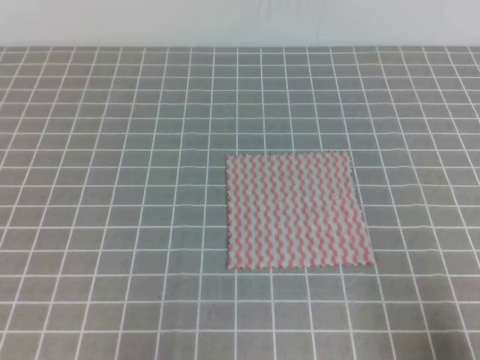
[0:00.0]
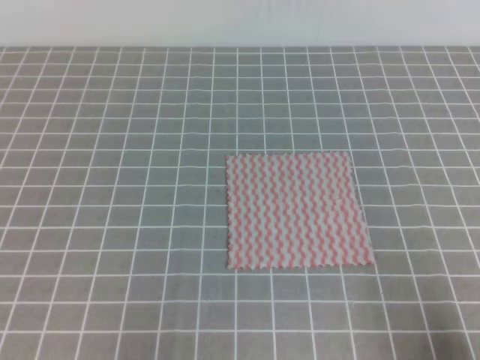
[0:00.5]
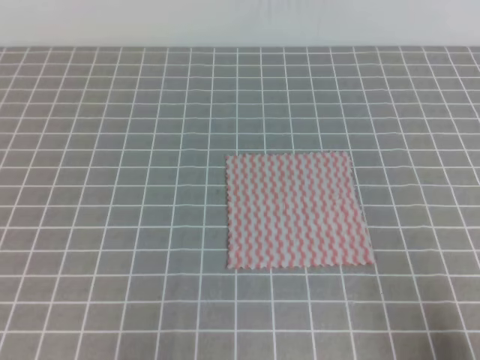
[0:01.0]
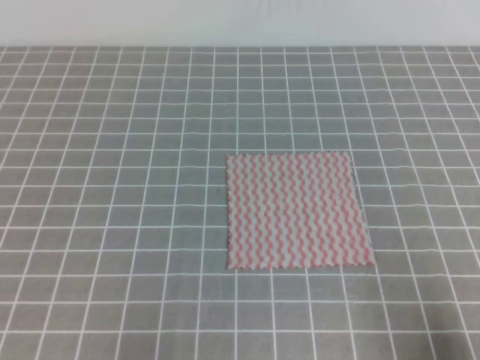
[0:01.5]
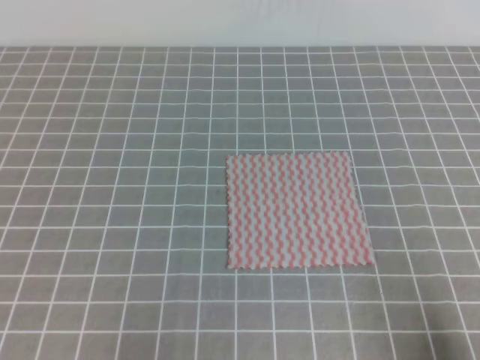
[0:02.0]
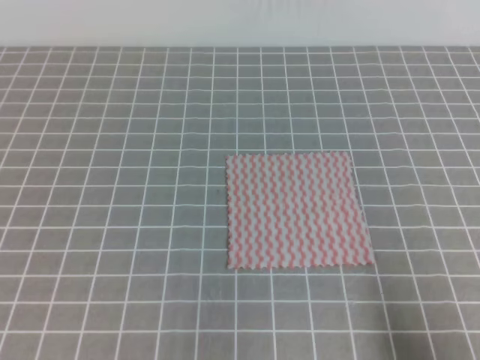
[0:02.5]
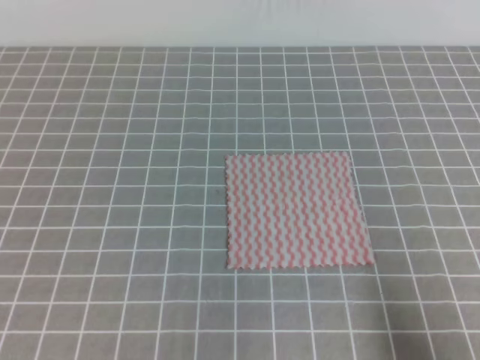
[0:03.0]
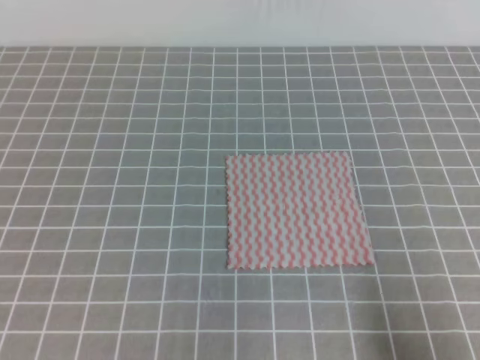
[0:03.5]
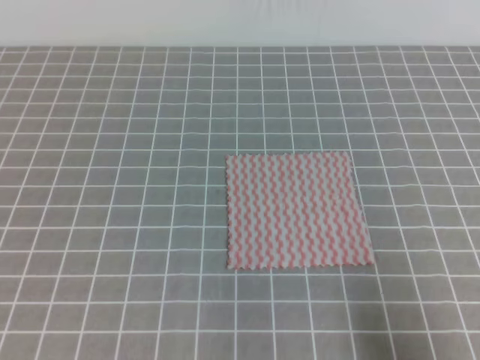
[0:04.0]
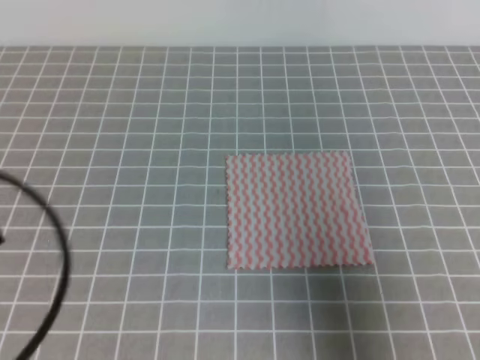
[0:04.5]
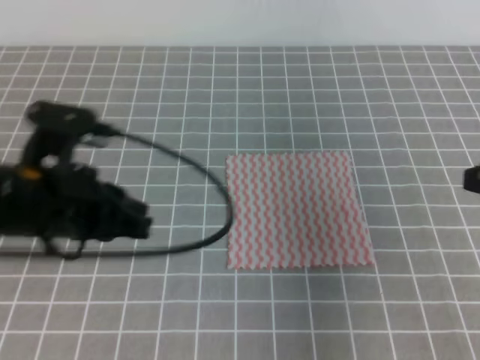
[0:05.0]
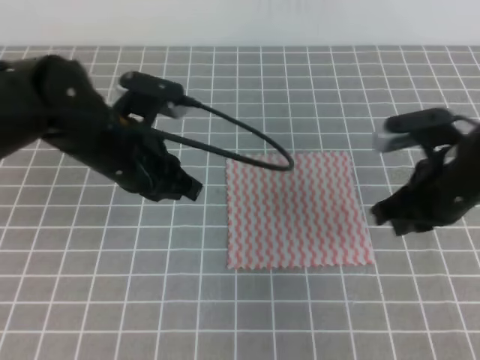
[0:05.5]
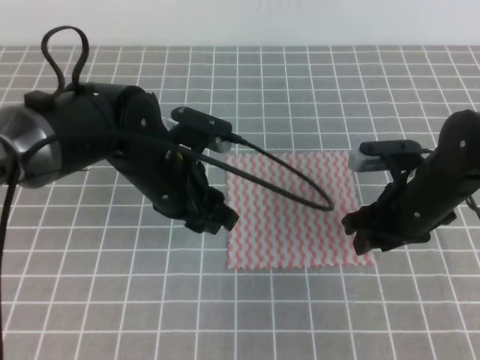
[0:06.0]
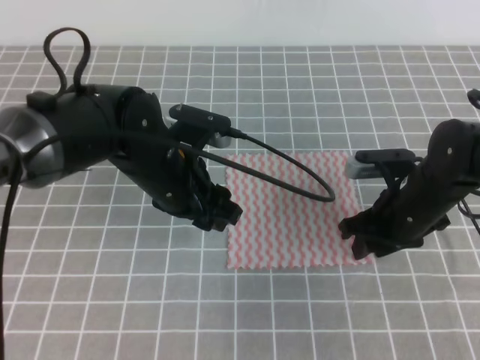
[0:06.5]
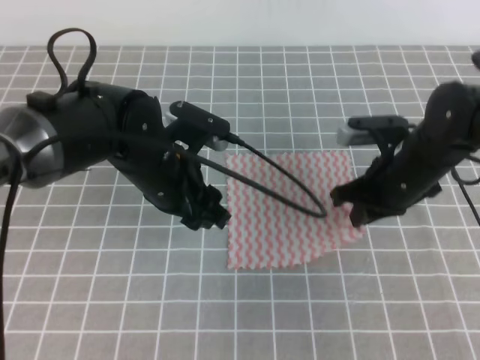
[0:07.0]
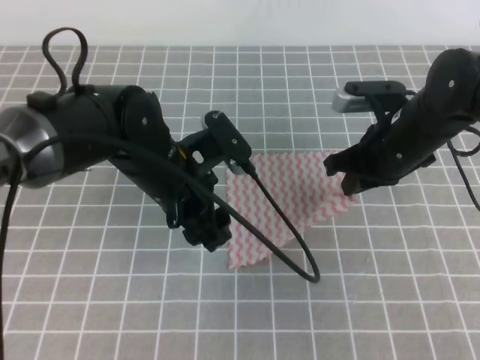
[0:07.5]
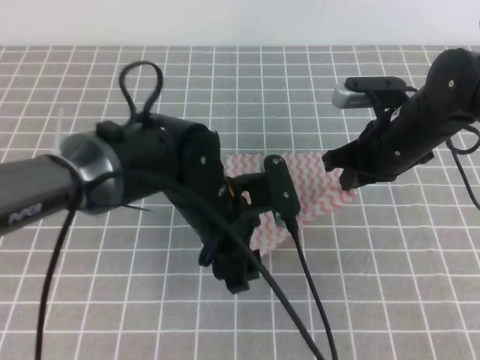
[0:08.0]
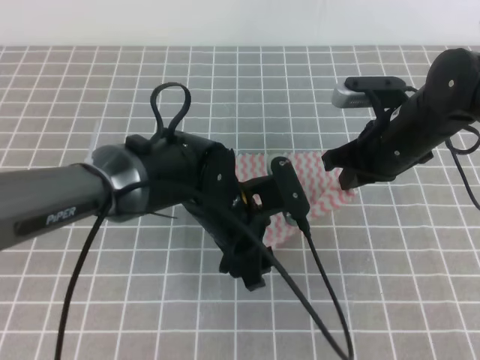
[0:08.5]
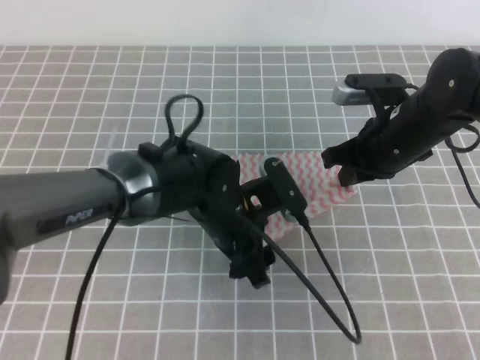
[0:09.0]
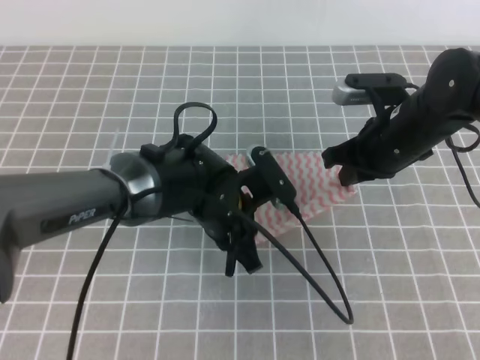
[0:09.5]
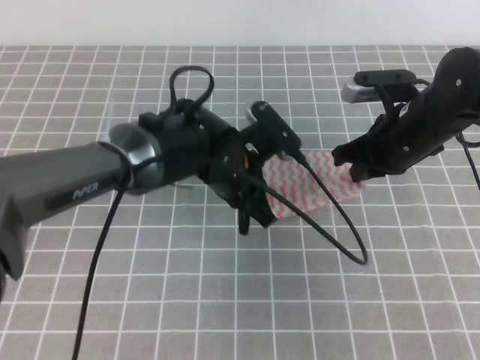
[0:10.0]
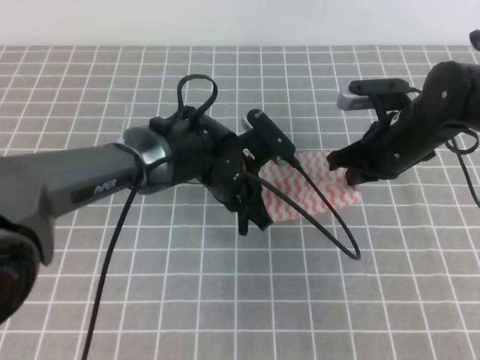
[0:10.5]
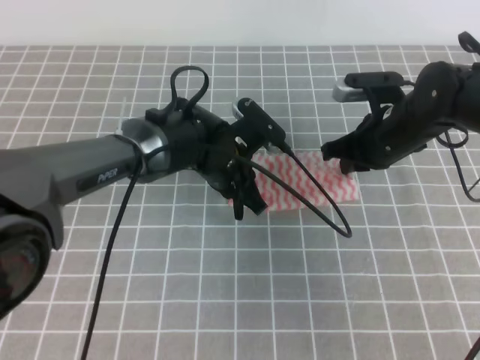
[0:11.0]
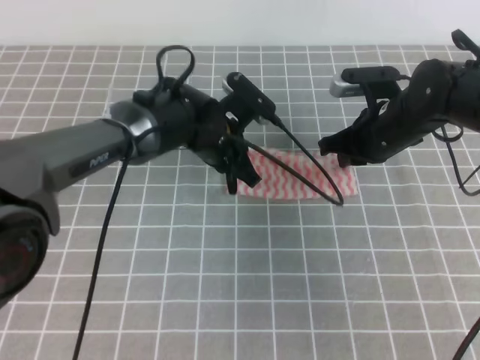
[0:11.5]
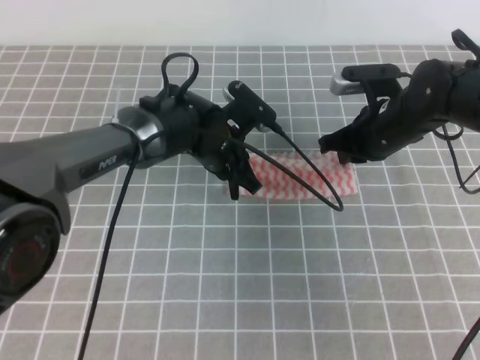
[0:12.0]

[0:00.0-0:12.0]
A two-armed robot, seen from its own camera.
0:04.0 to 0:06.0: The left gripper is displaced forward and to the right by some 30 cm, and opens its fingers; the right gripper heads forward, covering roughly 25 cm, and opens up.
0:06.0 to 0:08.0: The right gripper changes place by about 5 cm, and closes, while the left gripper moves some 5 cm, and opens.
0:08.0 to 0:10.0: The left gripper heads forward, covering roughly 5 cm, and closes.
0:10.0 to 0:12.0: The left gripper heads forward, covering approximately 5 cm.

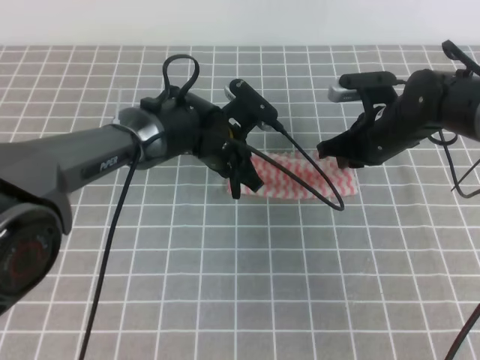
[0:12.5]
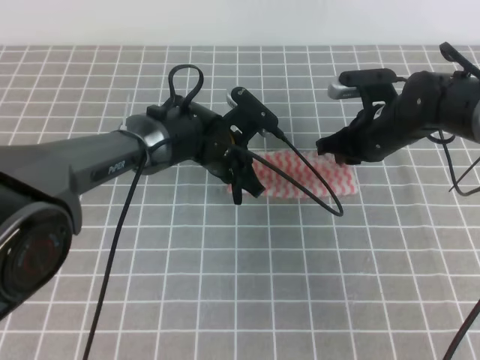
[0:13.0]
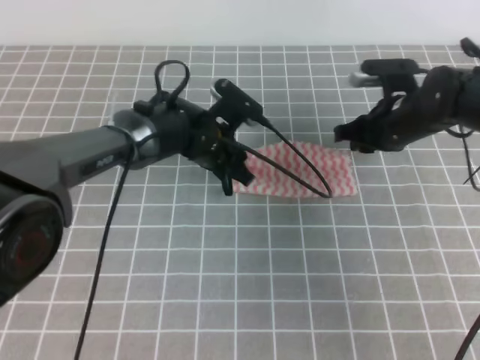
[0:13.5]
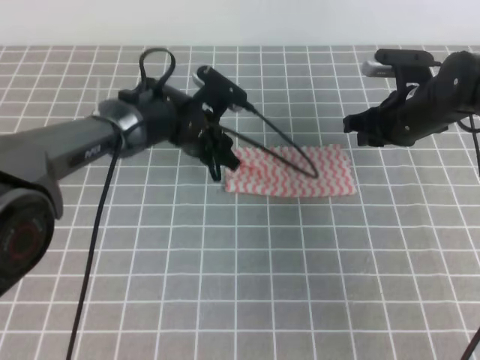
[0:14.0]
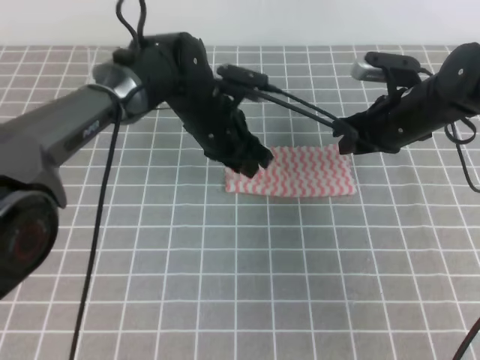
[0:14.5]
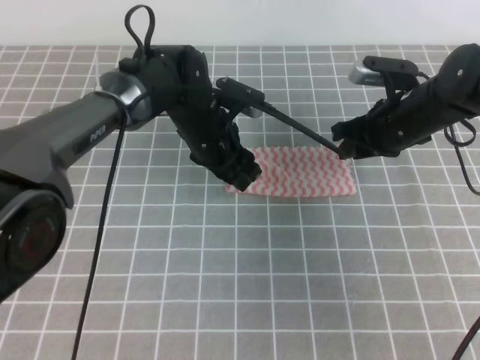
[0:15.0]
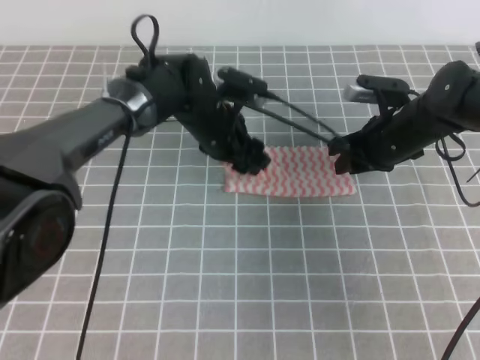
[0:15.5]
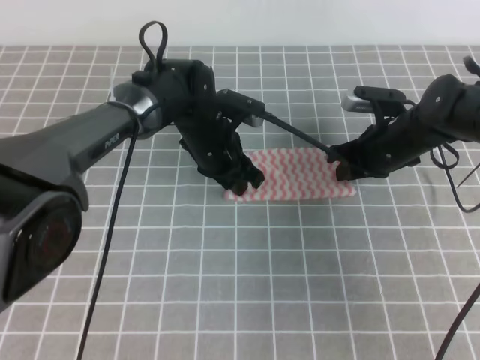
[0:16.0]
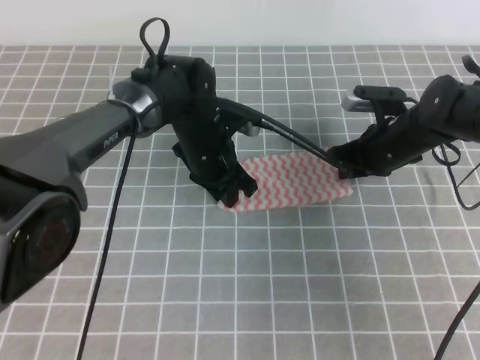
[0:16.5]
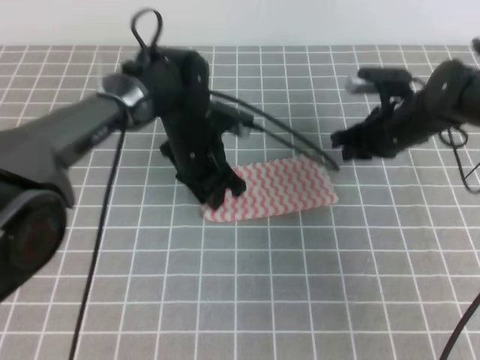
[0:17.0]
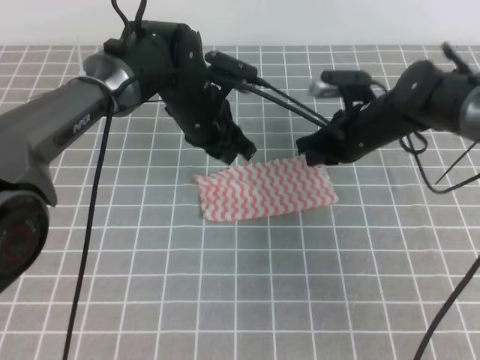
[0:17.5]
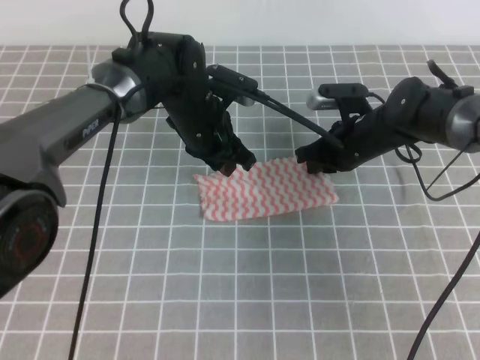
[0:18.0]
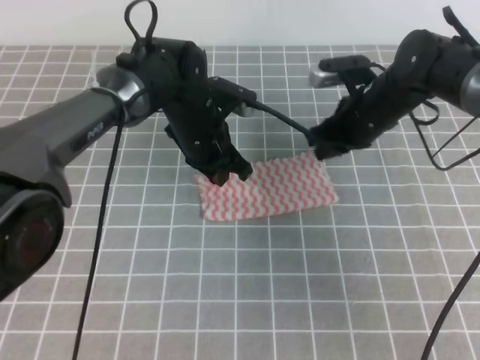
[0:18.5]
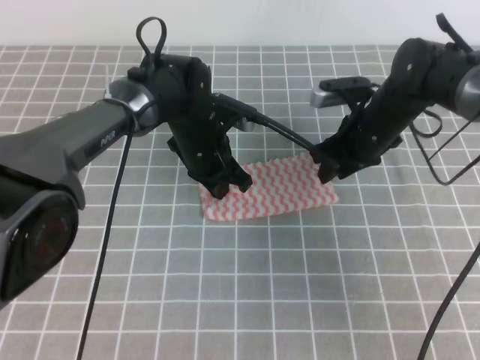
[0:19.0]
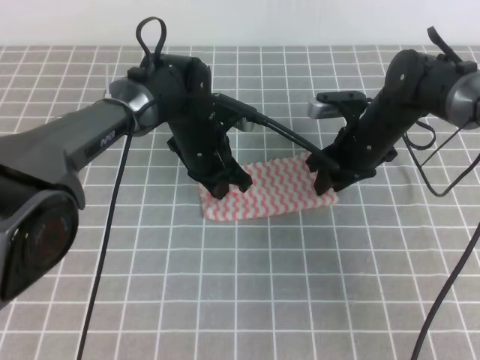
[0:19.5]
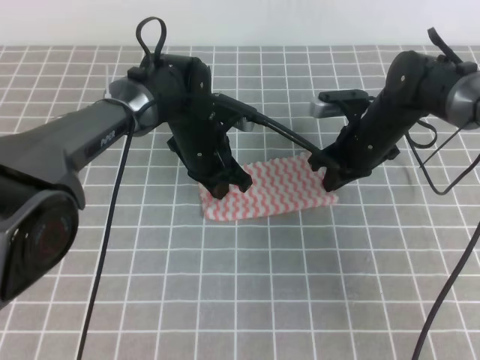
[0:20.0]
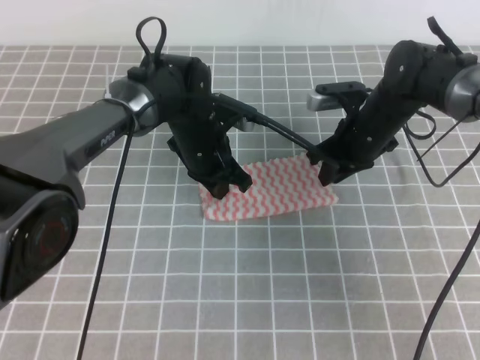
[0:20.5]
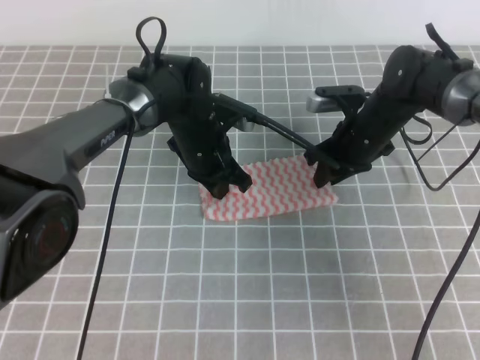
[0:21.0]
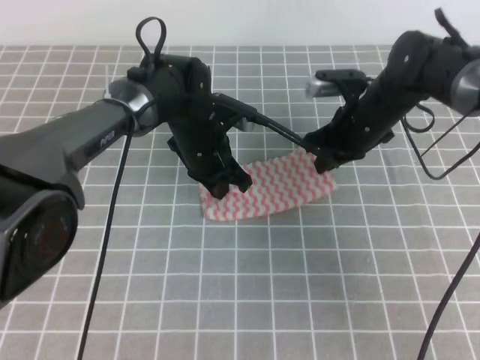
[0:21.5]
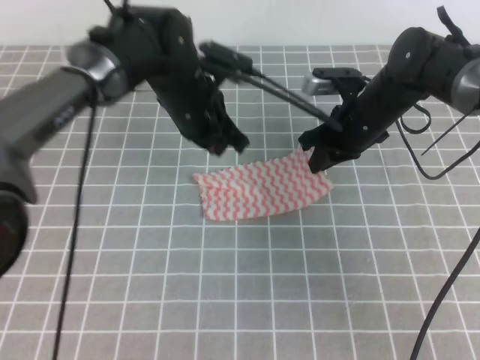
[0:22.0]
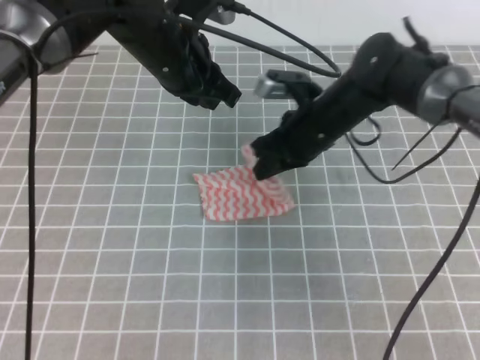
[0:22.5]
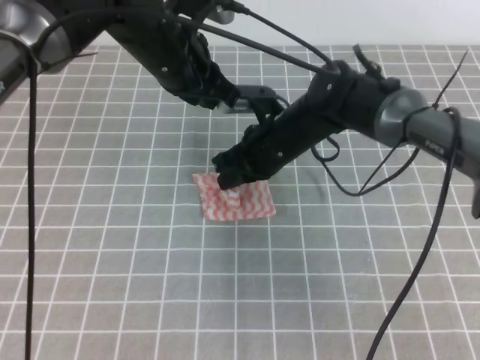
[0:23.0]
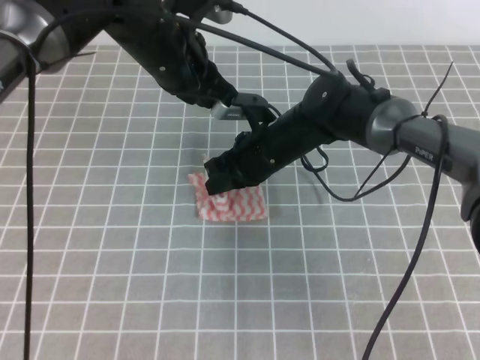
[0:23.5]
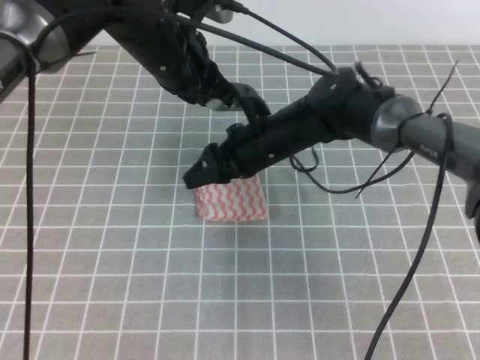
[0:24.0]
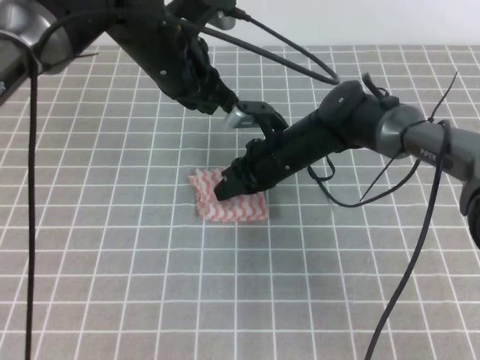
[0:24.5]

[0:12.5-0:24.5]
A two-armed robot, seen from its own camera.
0:12.5 to 0:14.5: The left gripper opens up, while the right gripper opens its fingers.
0:14.5 to 0:16.5: Both grippers move downward, roughly 5 cm. The left gripper opens, then closes once more.
0:16.5 to 0:18.5: The right gripper moves about 5 cm, and closes, then opens again.
0:18.5 to 0:20.5: The right gripper closes, then opens again.
0:20.5 to 0:22.5: The right gripper heads to the left, covering about 5 cm, and closes up. The left gripper is displaced upward by some 15 cm.
0:22.5 to 0:24.5: The right gripper moves some 5 cm, and opens, then closes once more.

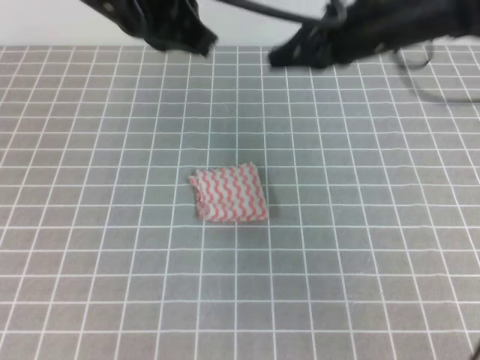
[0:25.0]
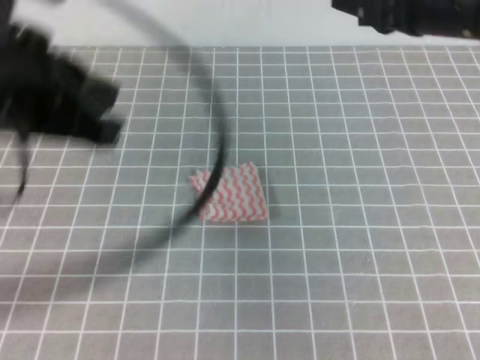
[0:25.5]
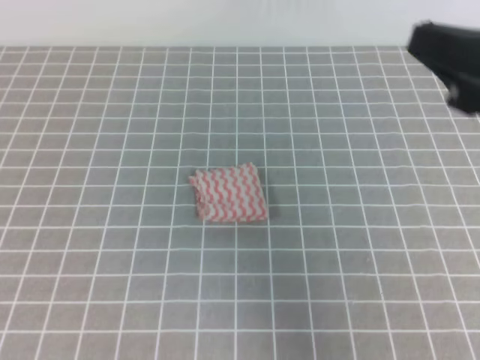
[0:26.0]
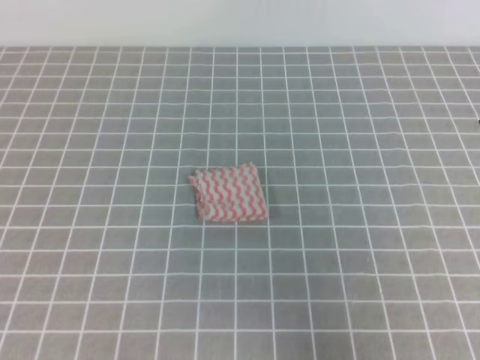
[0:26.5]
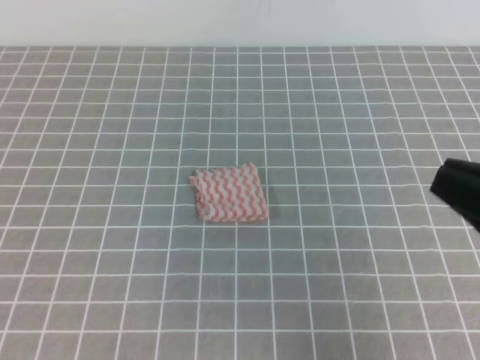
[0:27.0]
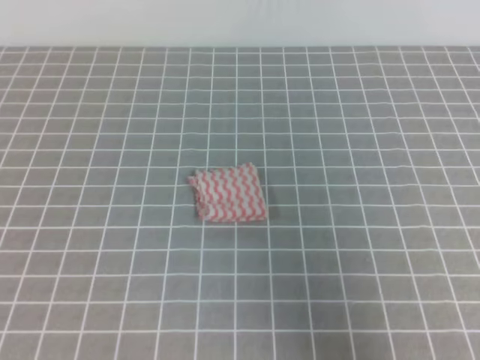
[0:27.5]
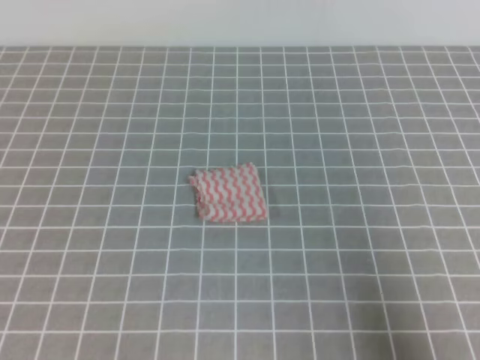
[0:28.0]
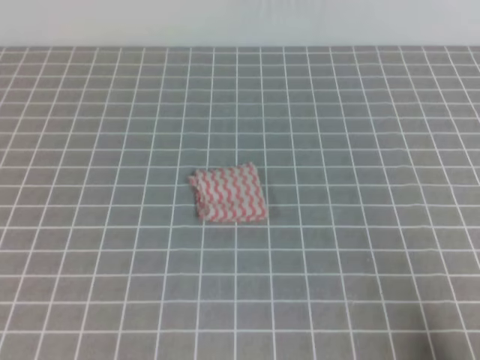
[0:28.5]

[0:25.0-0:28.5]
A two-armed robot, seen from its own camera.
0:25.0 to 0:27.0: The left gripper heads backward, to the left and downward, covering approximately 35 cm. Meanwhile the right gripper goes approximately 30 cm backward.
0:27.0 to 0:28.5: The right gripper moves downward and to the right, some 20 cm.
